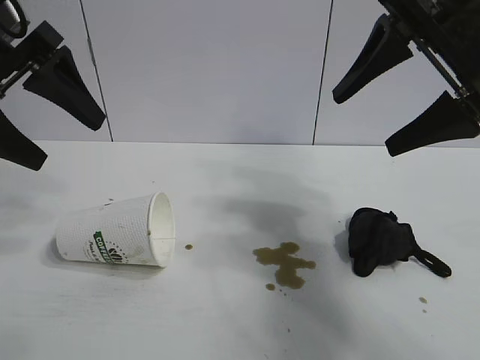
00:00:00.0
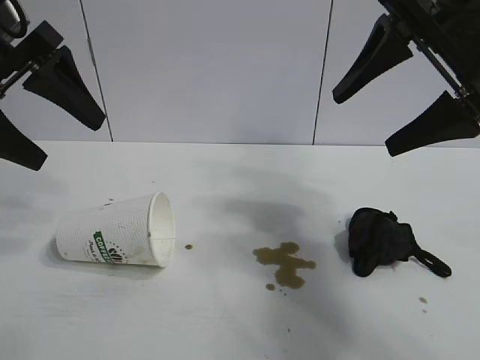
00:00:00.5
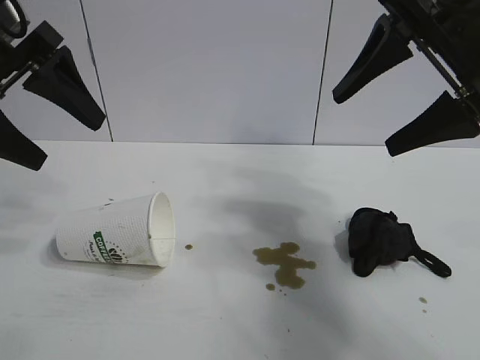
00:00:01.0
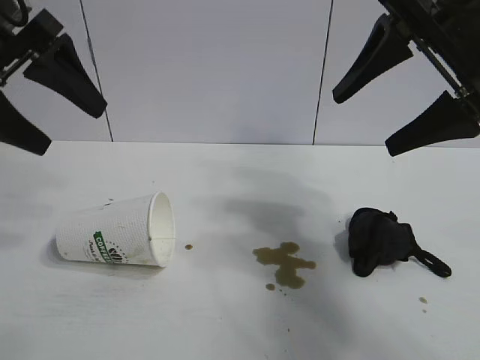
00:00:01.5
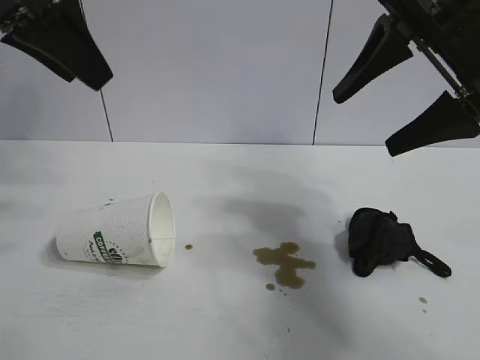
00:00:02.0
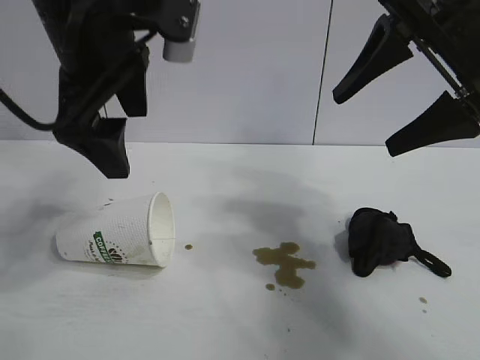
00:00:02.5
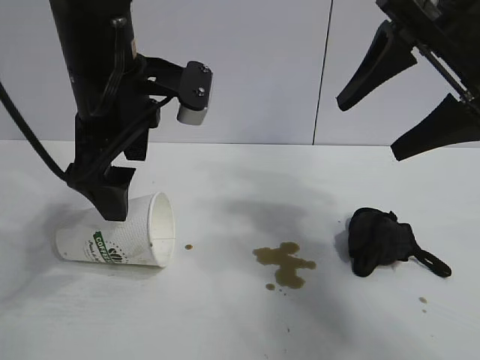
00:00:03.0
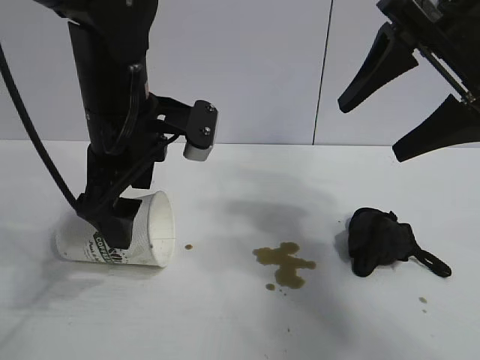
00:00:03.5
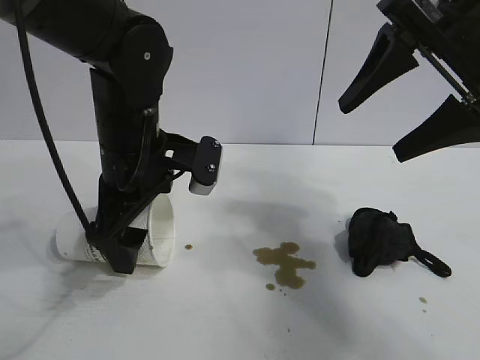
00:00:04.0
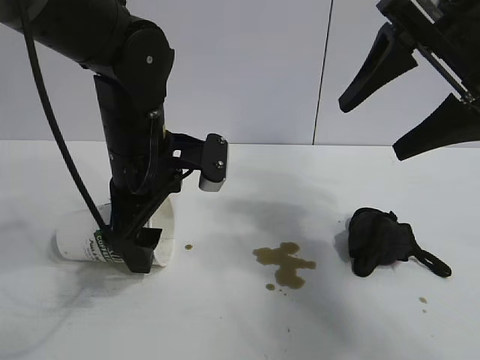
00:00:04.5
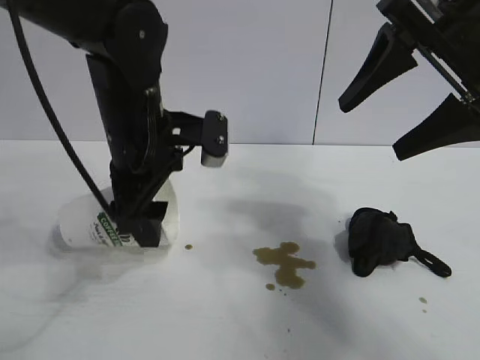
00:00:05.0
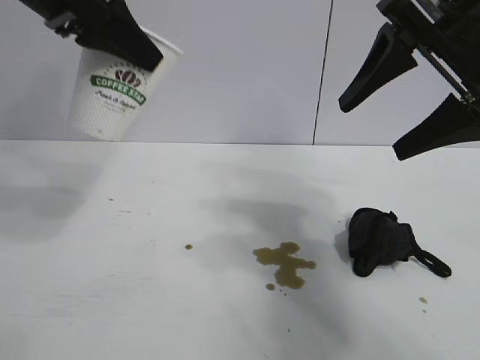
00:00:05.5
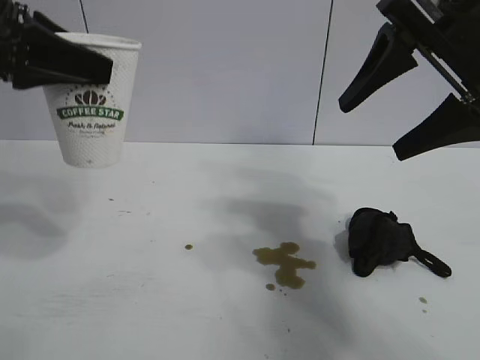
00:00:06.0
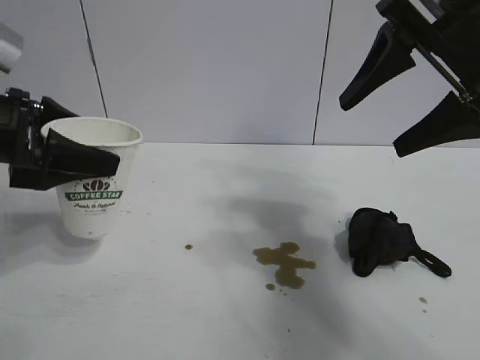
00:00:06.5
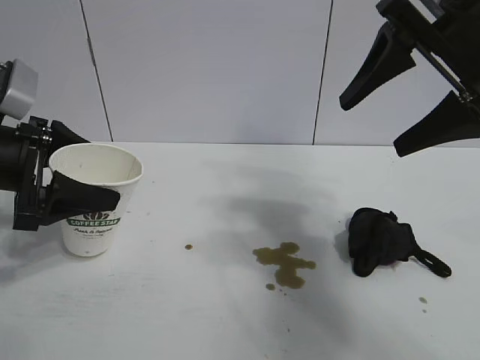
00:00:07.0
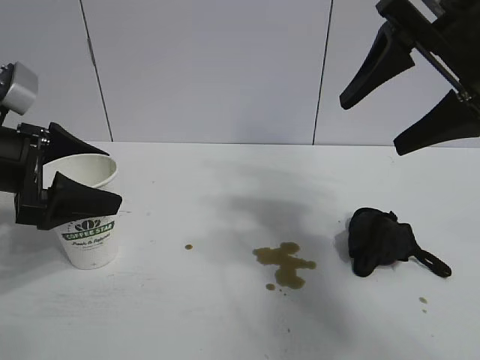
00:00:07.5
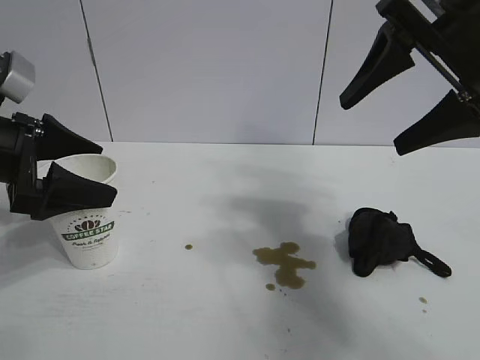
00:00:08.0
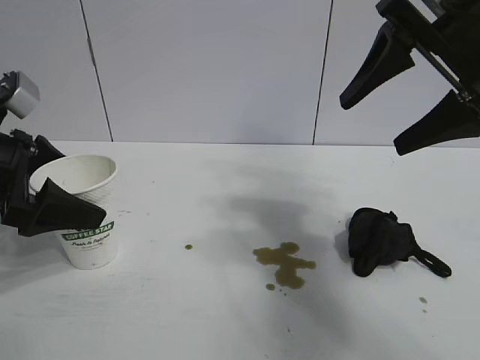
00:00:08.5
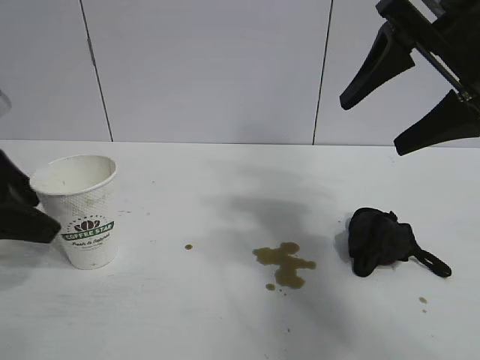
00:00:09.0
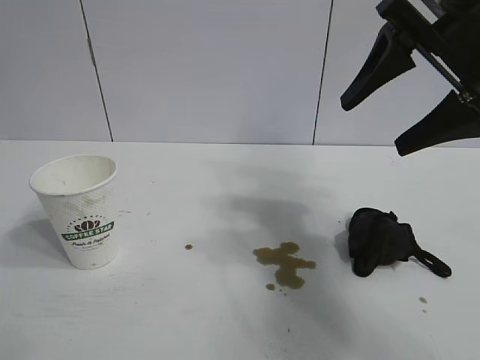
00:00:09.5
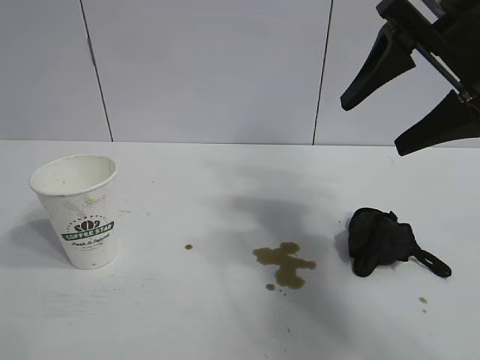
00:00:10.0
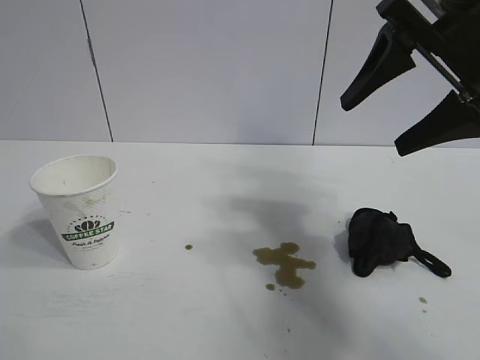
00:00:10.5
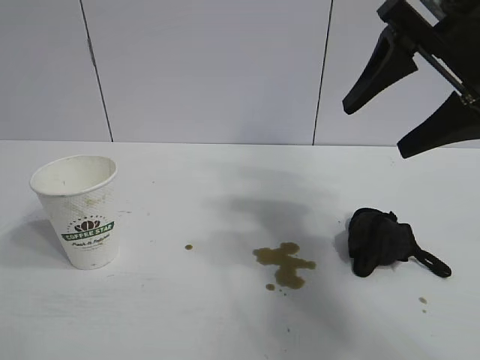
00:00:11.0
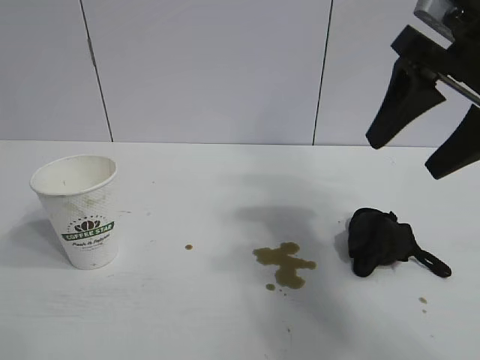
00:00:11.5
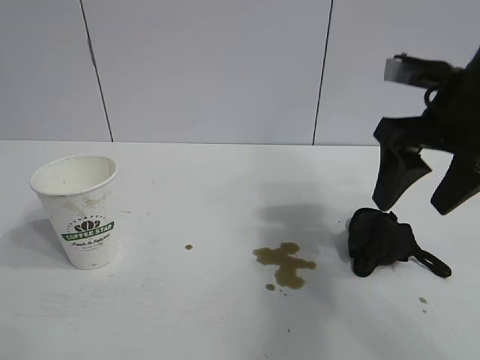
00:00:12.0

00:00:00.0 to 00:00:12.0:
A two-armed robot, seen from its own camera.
Task of the whole recording: the left gripper pick up the fallen cup and place it upright, the right gripper grasp the black rag and wipe the stain on the table, the right gripper put the black rag back in its original position.
Step, 00:00:01.5 to 00:00:04.5: Grasp the paper cup with left gripper.
Step, 00:00:05.0 to 00:00:07.0: Stand the paper cup upright with left gripper.

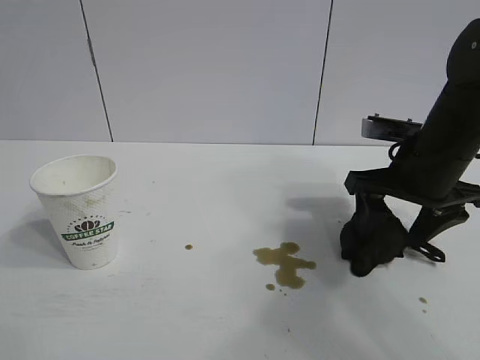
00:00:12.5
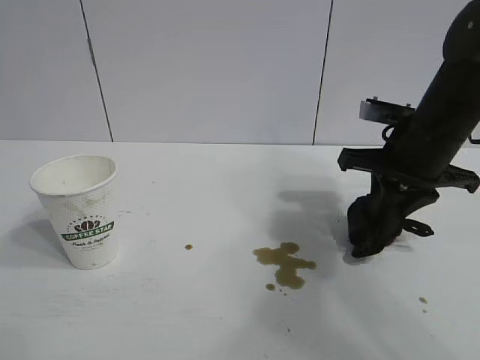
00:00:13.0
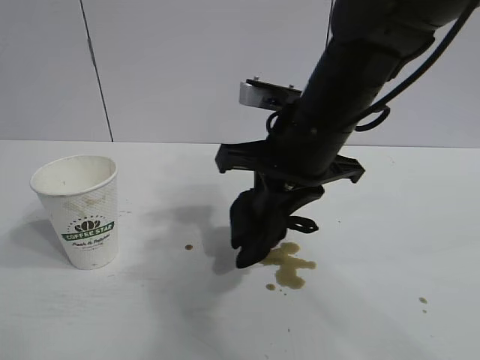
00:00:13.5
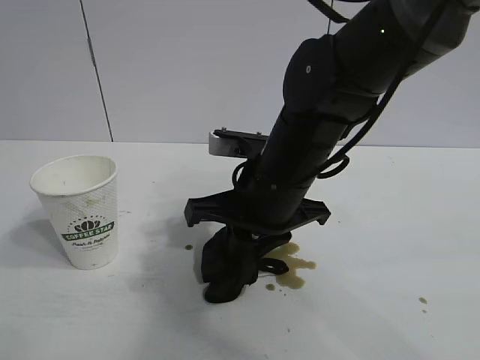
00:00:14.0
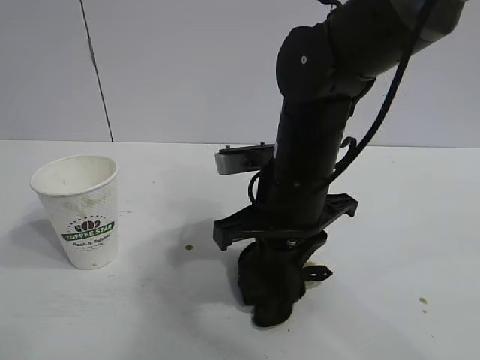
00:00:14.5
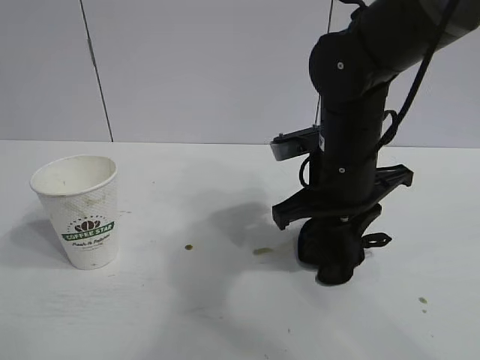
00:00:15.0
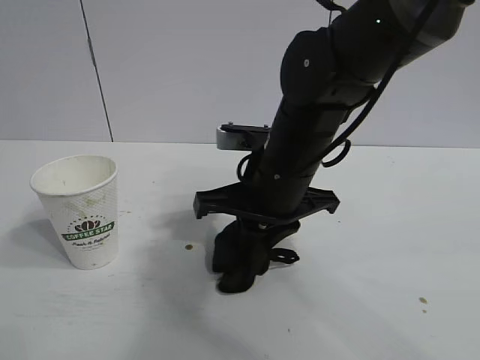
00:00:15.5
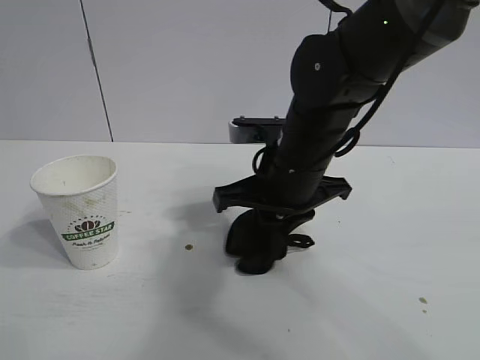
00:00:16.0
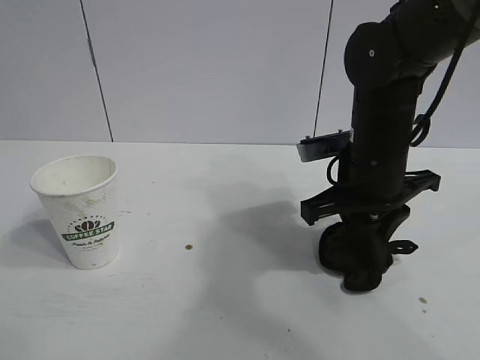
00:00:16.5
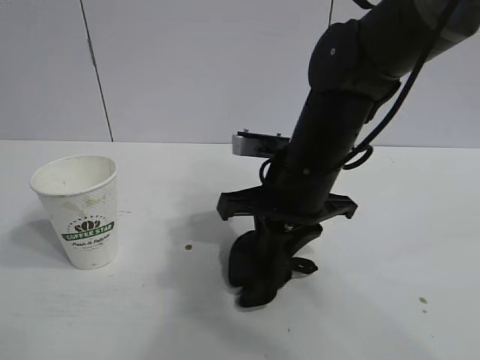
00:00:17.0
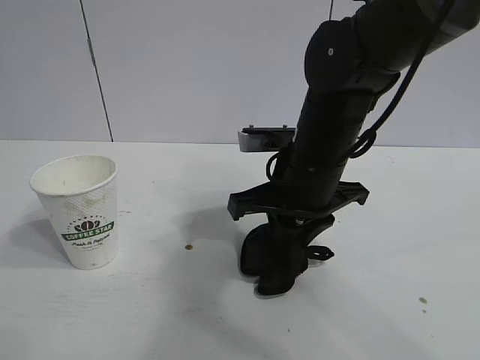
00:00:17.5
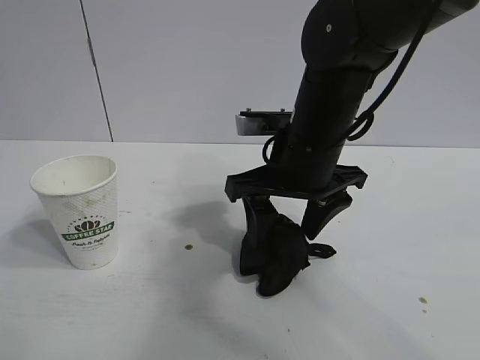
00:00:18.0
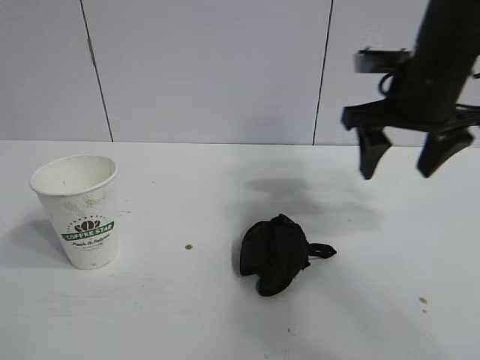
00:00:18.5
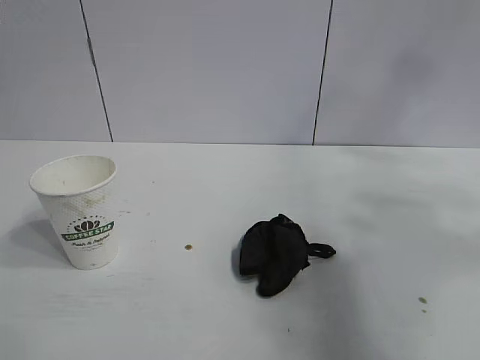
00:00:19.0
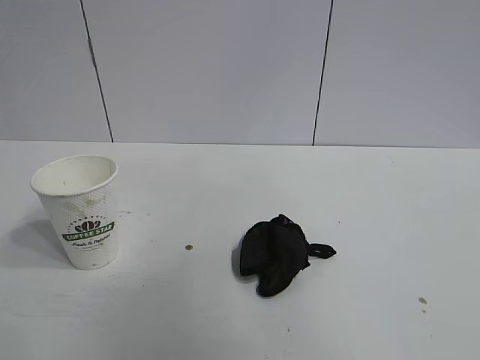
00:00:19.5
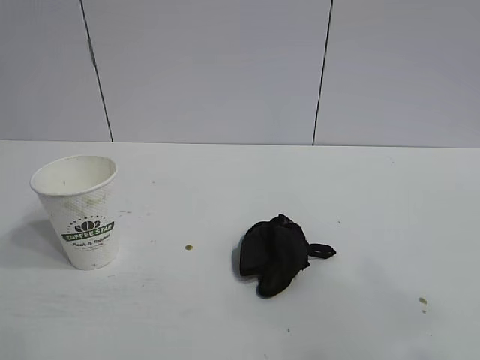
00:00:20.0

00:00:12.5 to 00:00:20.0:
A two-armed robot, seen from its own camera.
Task of the whole recording: the left gripper pick up the fallen cup and place it upright, the right gripper grasp the black rag and wipe the stain on the table, the right gripper put the black rag back in its original position.
Step, 00:00:13.0 to 00:00:17.0: Wipe the stains off the table with the rag with right gripper.
